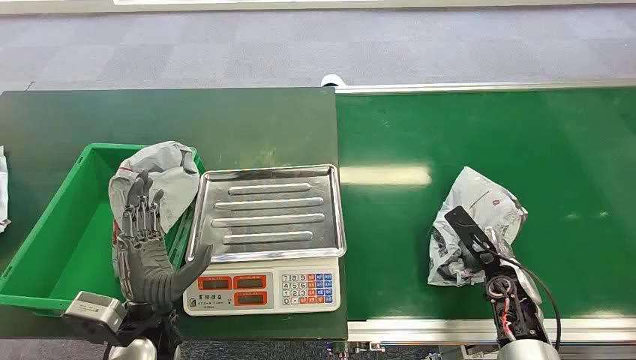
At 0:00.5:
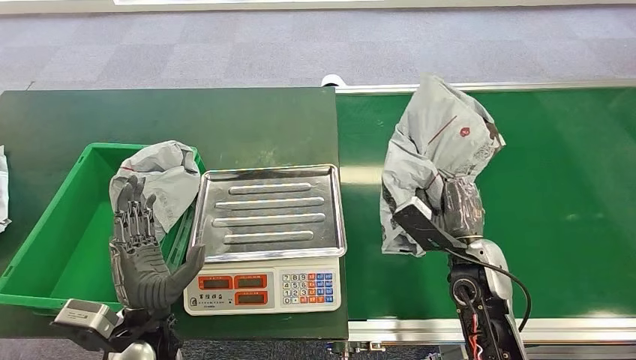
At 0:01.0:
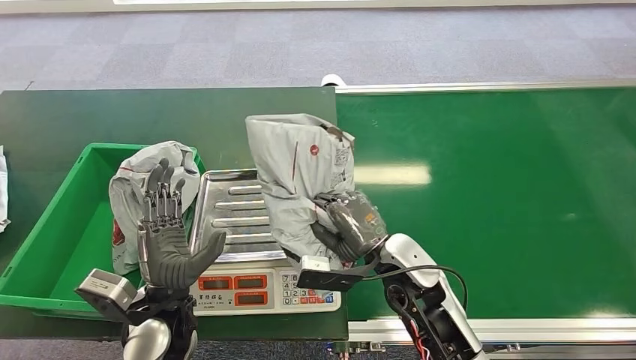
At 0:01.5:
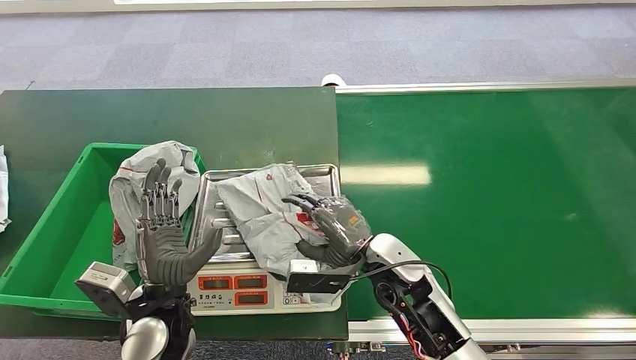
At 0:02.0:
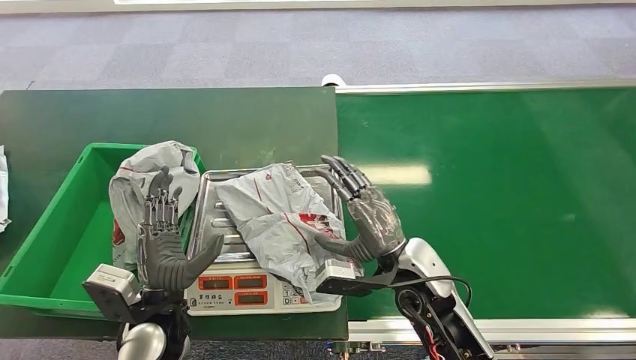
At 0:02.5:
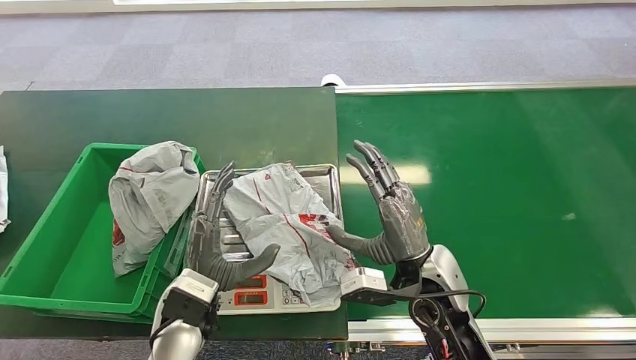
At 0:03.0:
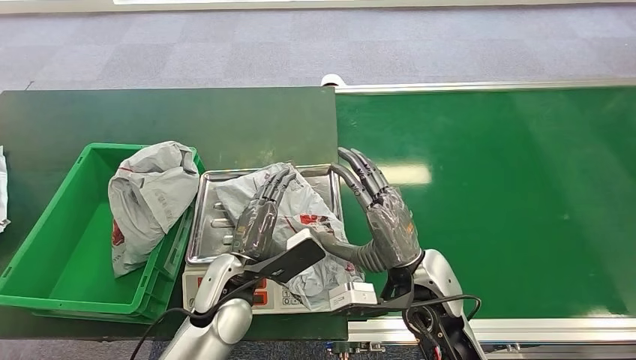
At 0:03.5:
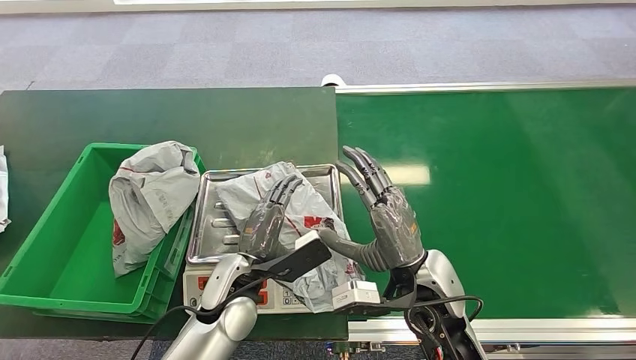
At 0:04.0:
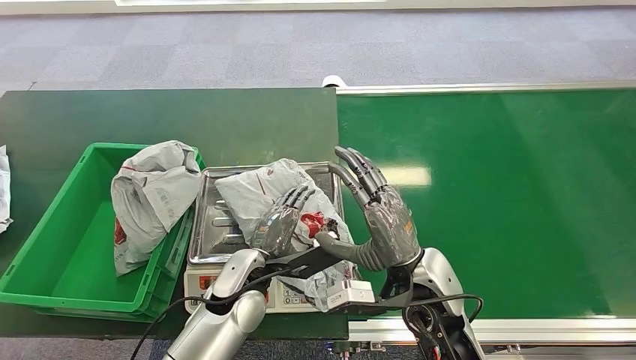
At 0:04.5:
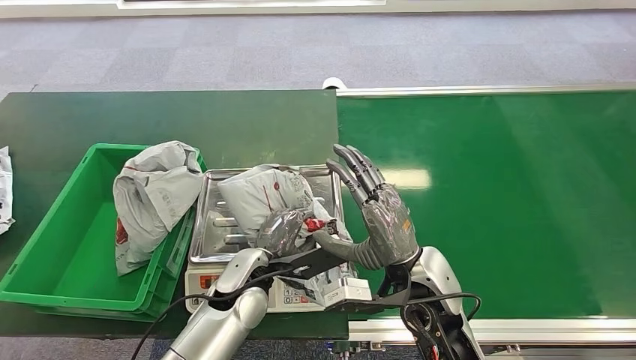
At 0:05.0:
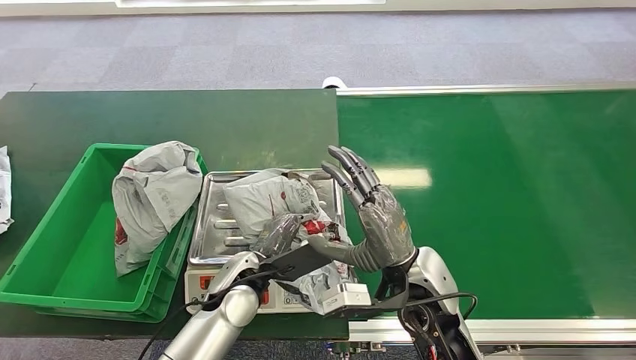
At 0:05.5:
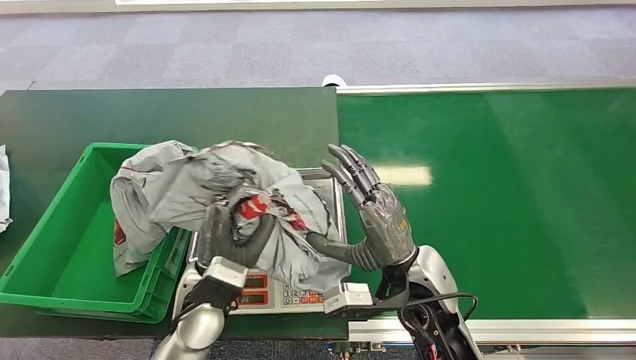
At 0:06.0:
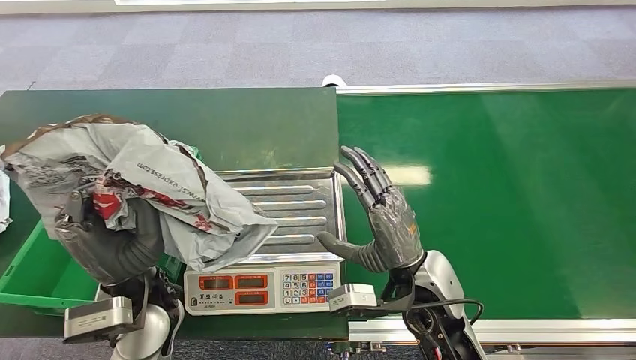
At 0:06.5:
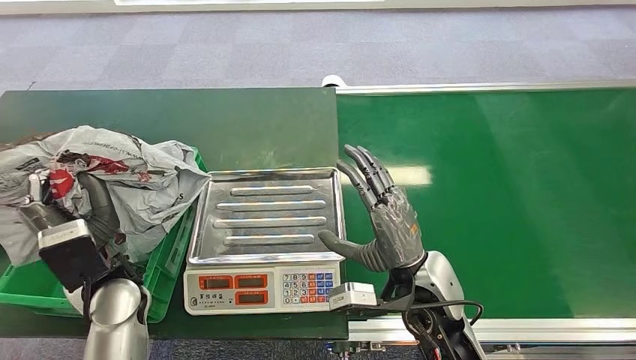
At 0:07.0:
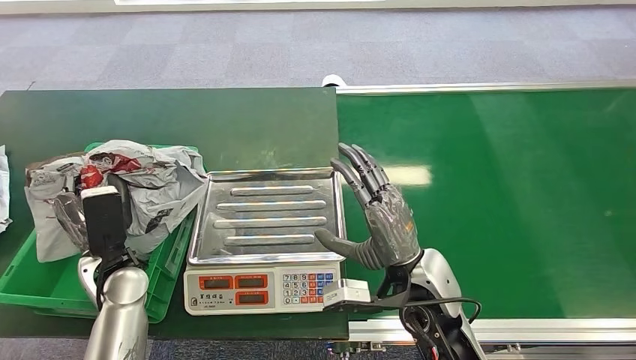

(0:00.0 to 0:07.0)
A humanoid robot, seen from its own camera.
Step, 0:00.0 - 0:00.5: Pick up the package from the conveyor belt.
Step, 0:01.0 - 0:01.5: Place the package onto the inbound machine.
Step, 0:06.5 - 0:07.0: Place the package into the parcel locker.
0:02.0 - 0:03.5: The left hand heads to the right and forward, covering some 10 cm.
0:03.5 - 0:05.0: There are only small adjustments of the hands.
